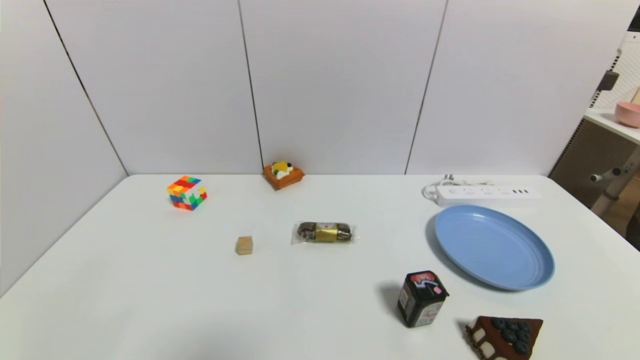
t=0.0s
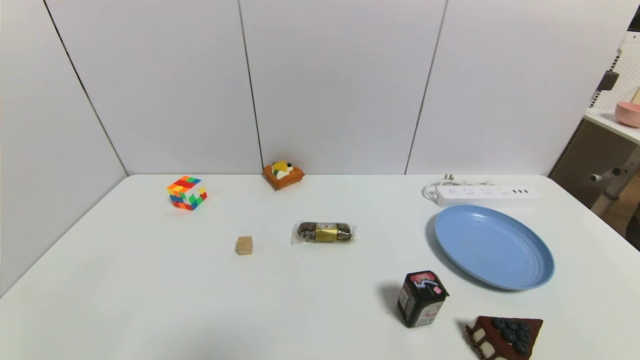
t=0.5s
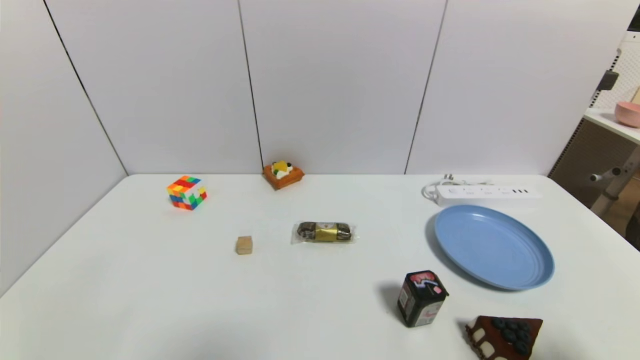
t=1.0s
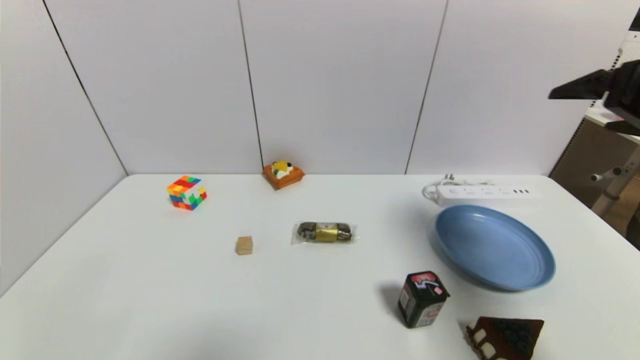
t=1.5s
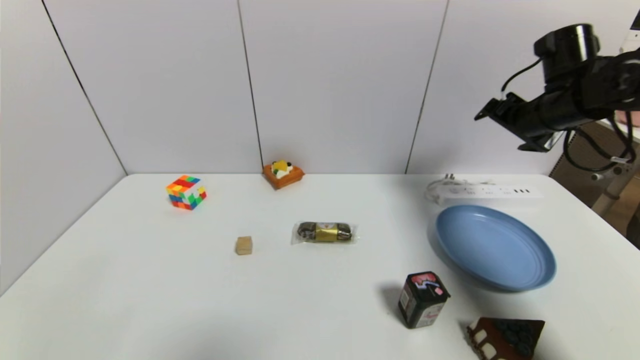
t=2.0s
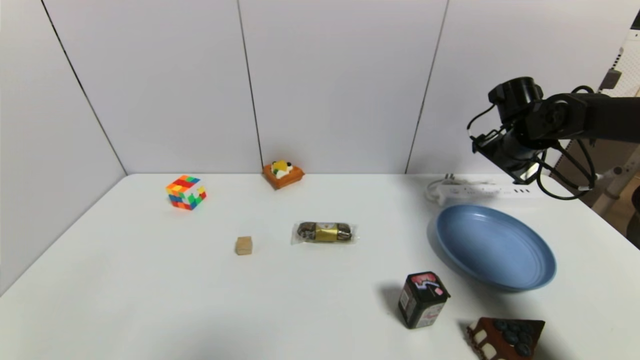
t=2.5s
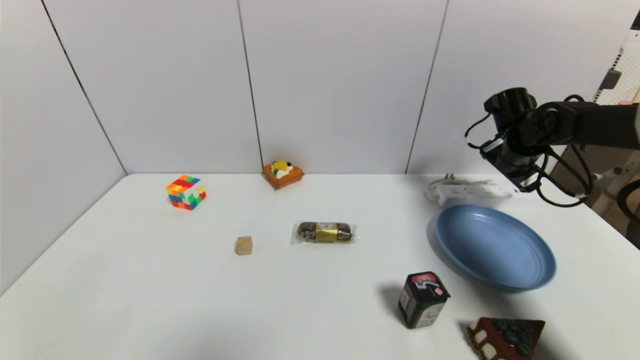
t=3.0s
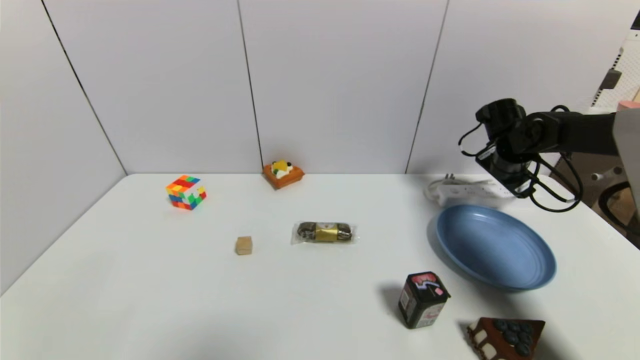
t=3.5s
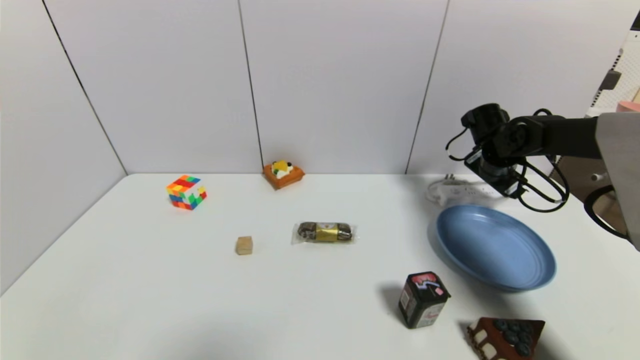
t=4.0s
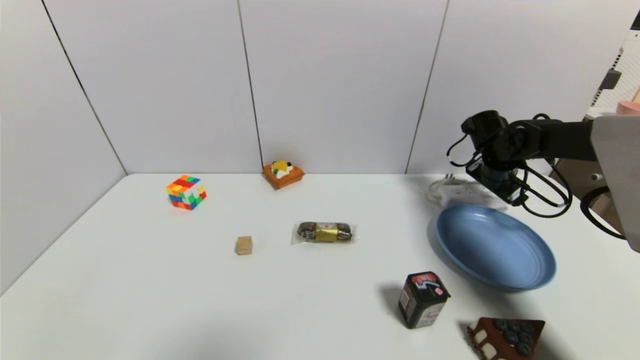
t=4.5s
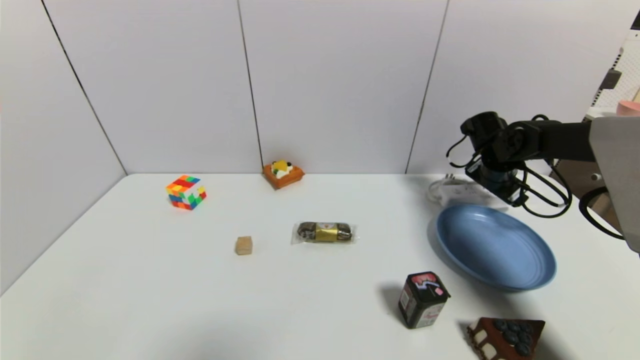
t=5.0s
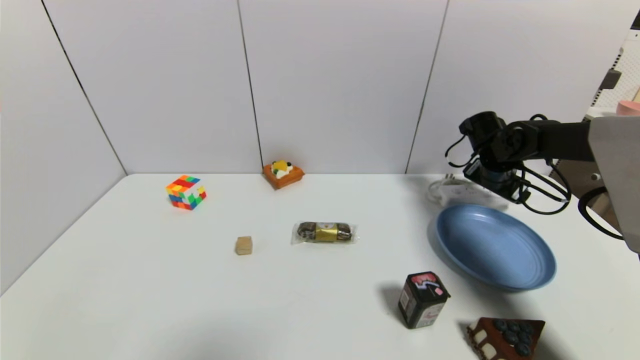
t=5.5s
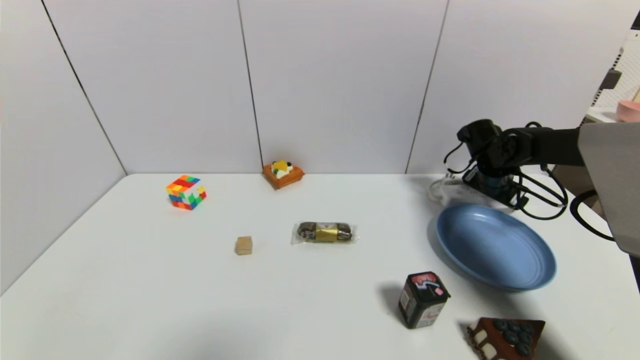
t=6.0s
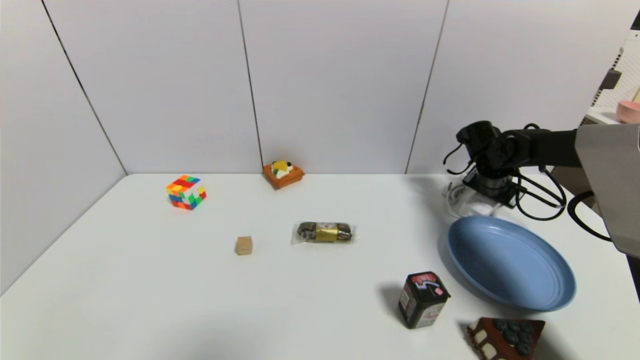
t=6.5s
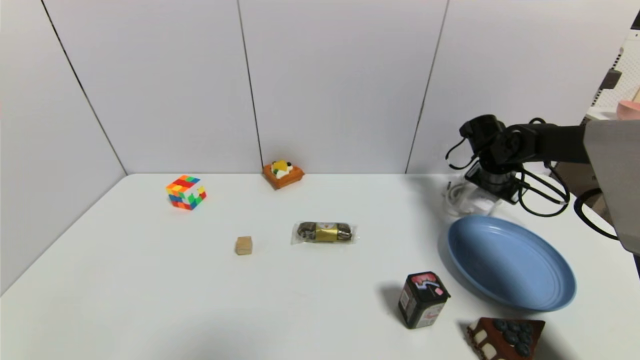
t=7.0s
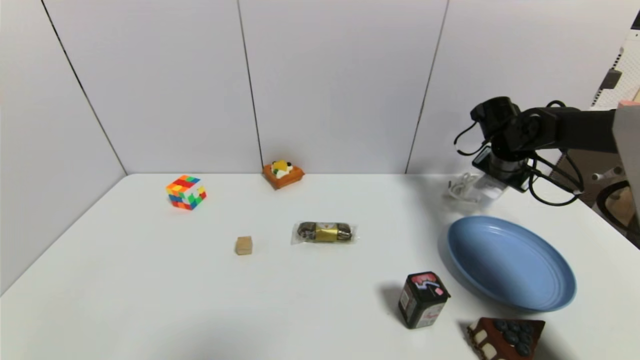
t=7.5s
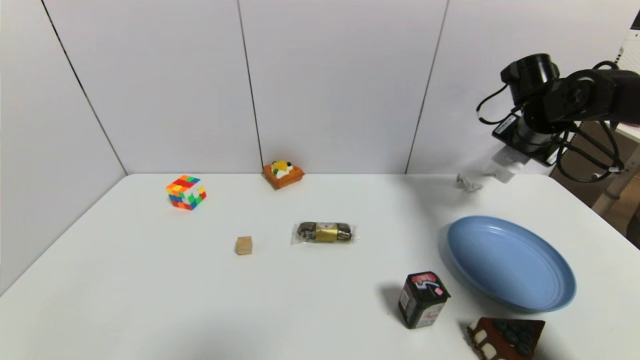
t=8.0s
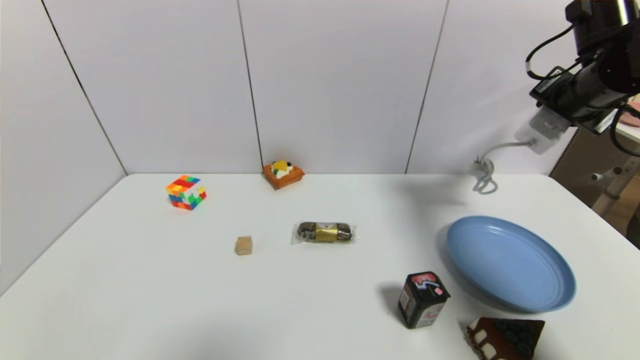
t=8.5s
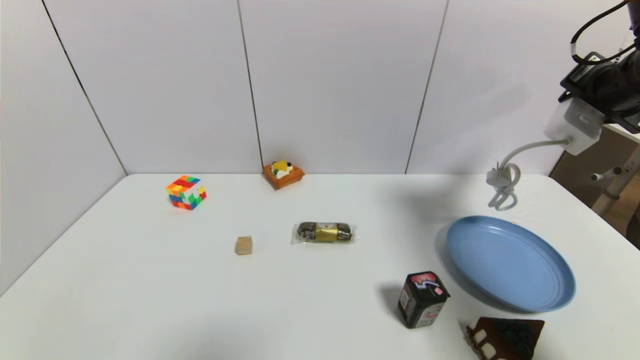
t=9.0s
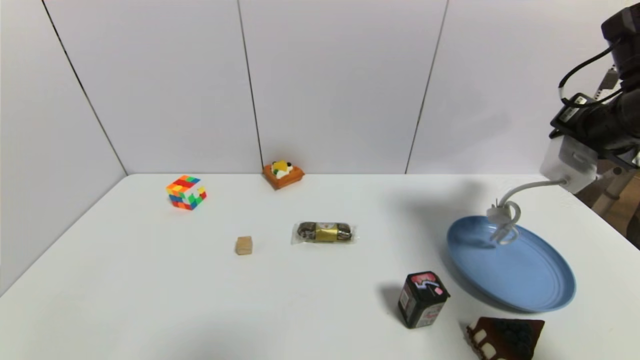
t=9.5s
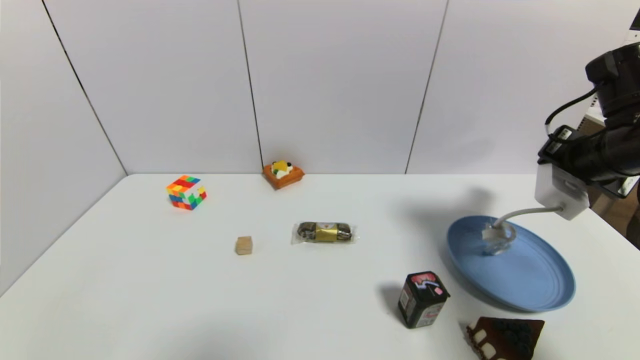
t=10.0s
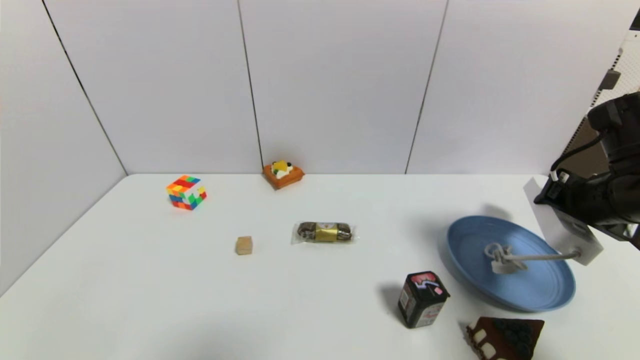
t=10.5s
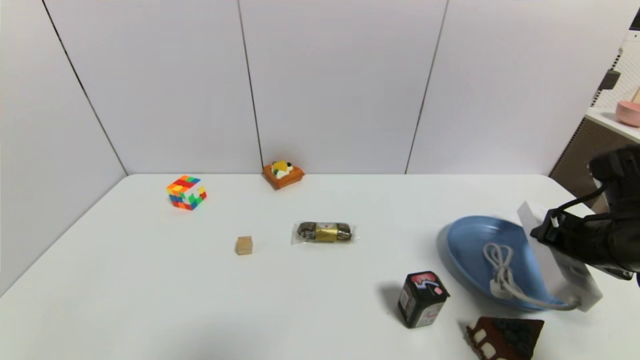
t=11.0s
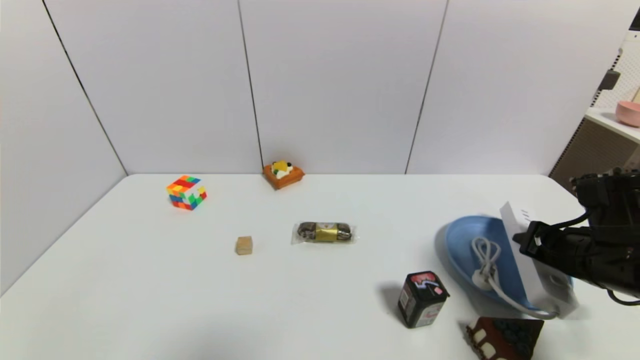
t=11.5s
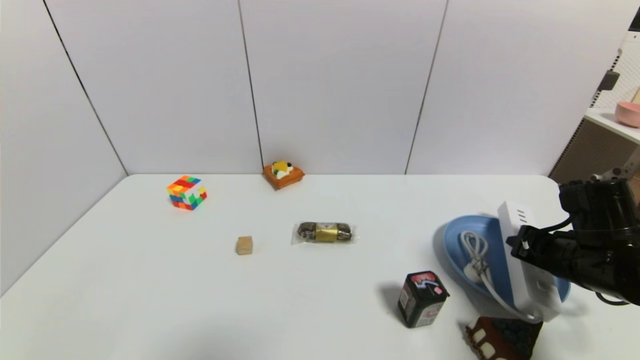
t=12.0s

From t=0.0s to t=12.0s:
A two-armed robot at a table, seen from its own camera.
Task of the whole recording: use a gripper to pick the target object and place on the blue plate.
Step, from t=0.0s to t=6.0s: Grasp the plugboard with the right gripper.
From t=0.0s to t=2.0s: The right gripper heads forward and upward, covering about 50 cm.
From t=2.0s to t=4.0s: The right gripper goes about 15 cm downward and forward.
From t=4.0s to t=6.0s: The grippers stay close to where they were, moving slightly.
From t=6.0s to t=8.0s: The right gripper moves upward, some 10 cm, and closes up.
From t=8.0s to t=10.0s: The right gripper travels backward by about 15 cm.
From t=10.0s to t=12.0s: The right gripper is displaced downward by about 15 cm.

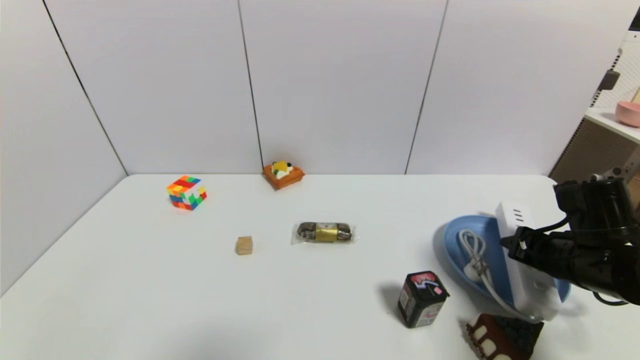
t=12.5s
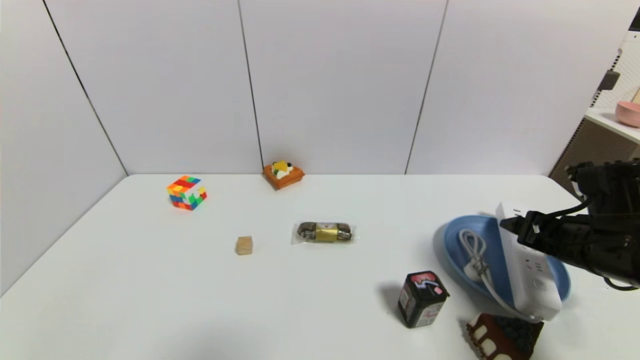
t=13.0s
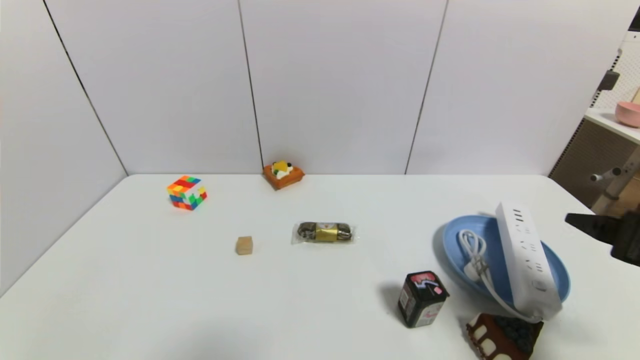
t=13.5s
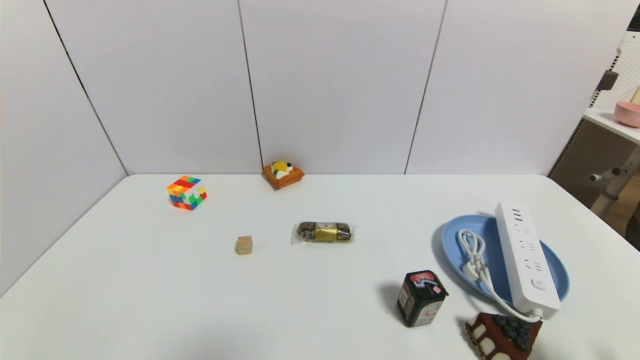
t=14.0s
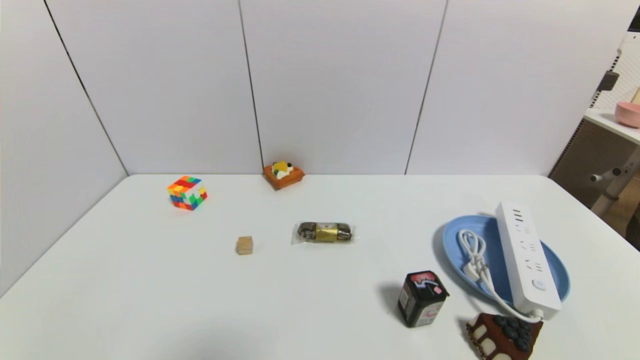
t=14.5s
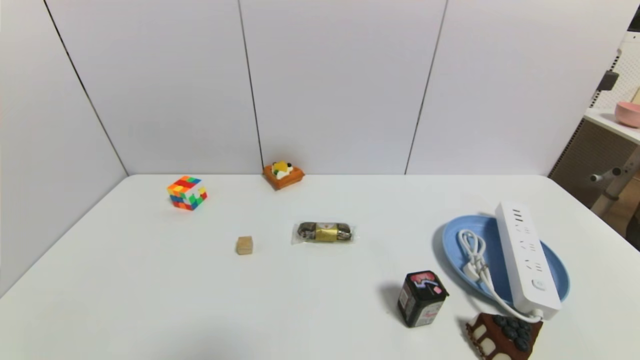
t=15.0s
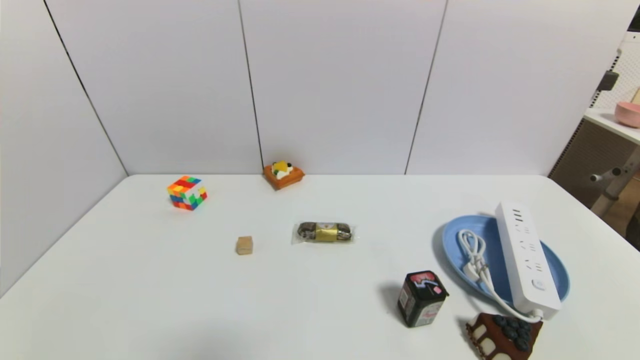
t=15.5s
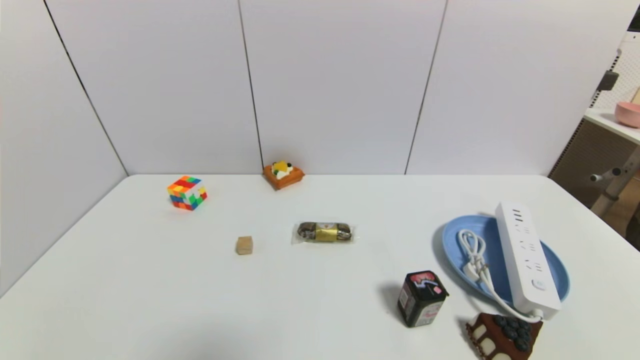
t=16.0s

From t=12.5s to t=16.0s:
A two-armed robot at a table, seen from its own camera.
Task of the whole recording: use a gripper to pick the target object and place on the blue plate.
From t=12.5s to t=14.5s: The right gripper shifts approximately 25 cm backward, and opens up.

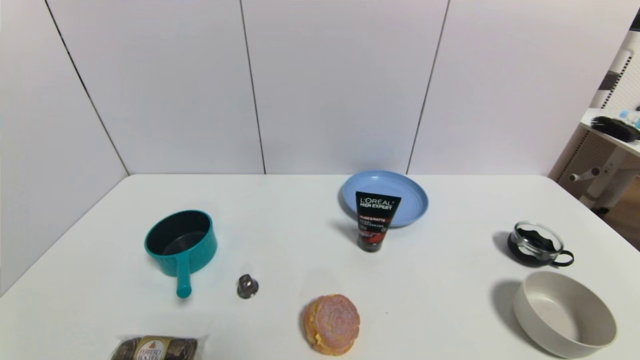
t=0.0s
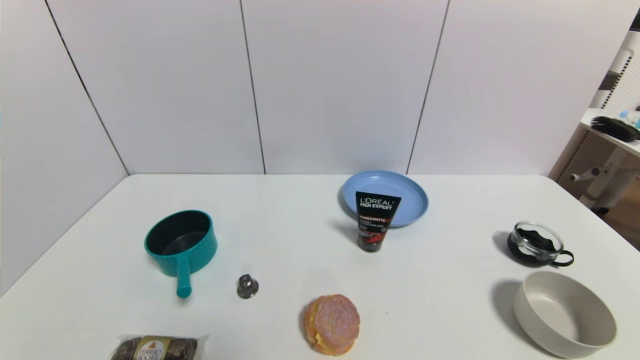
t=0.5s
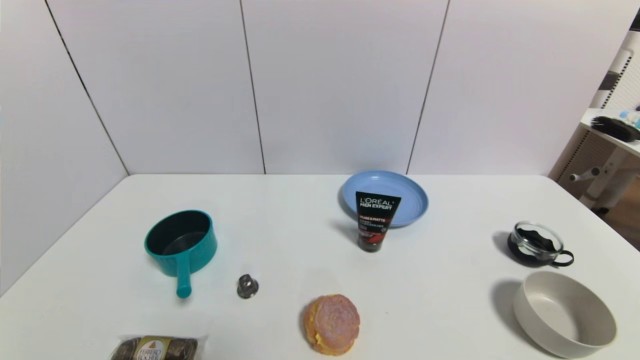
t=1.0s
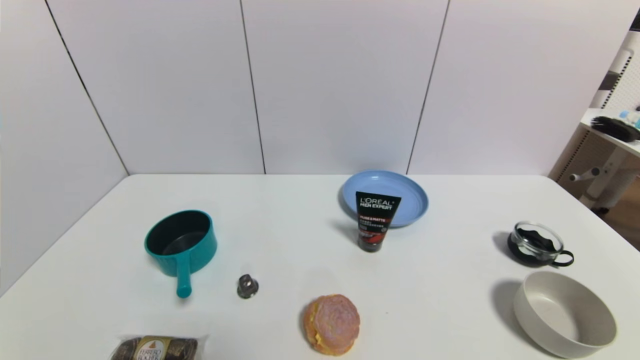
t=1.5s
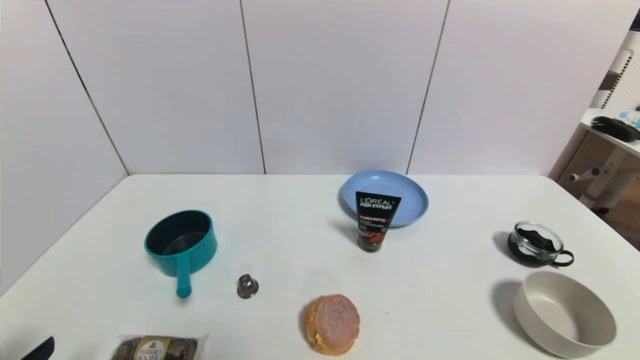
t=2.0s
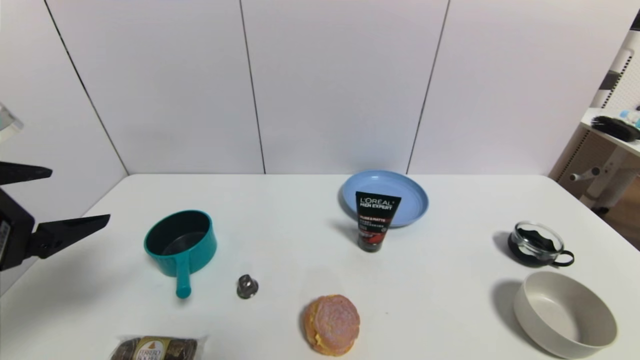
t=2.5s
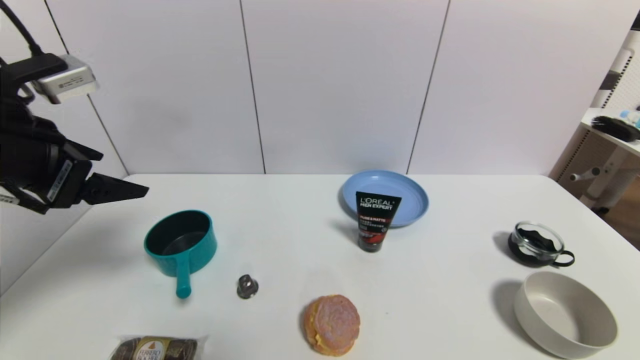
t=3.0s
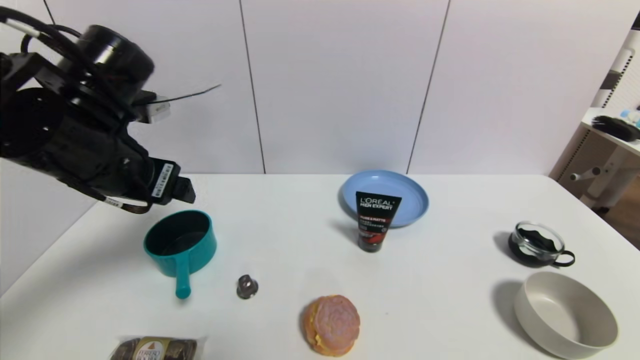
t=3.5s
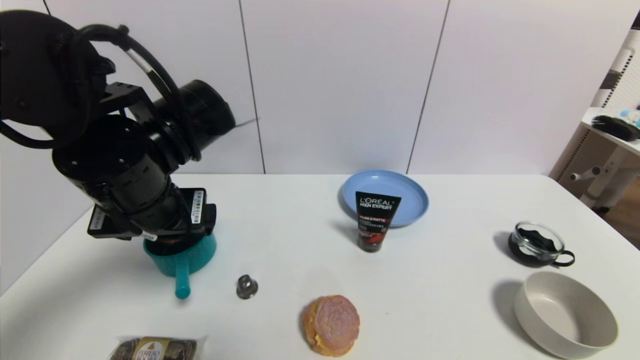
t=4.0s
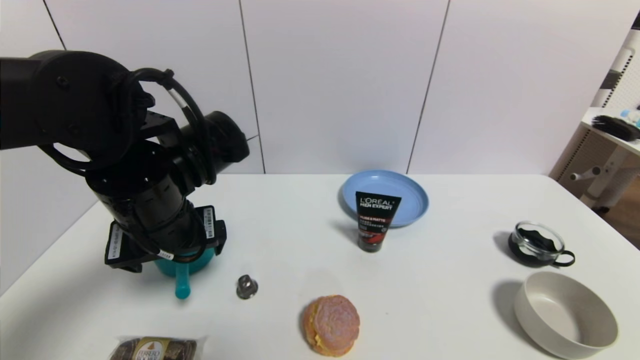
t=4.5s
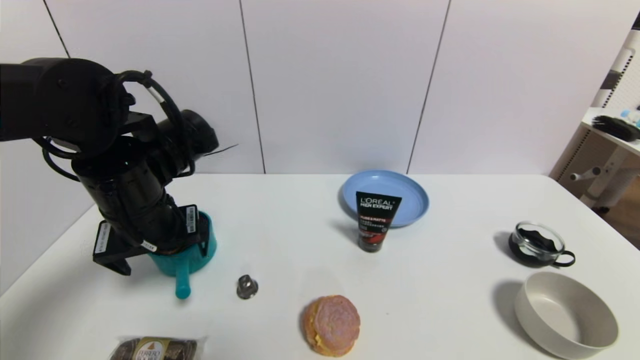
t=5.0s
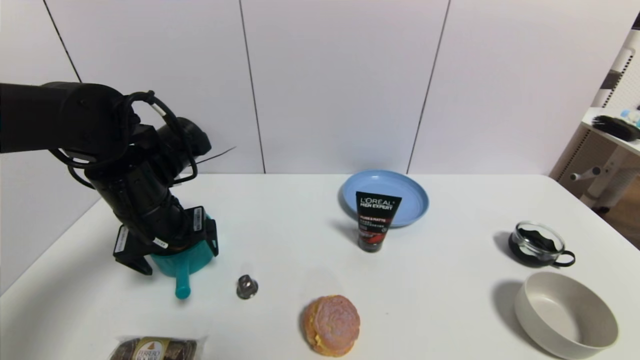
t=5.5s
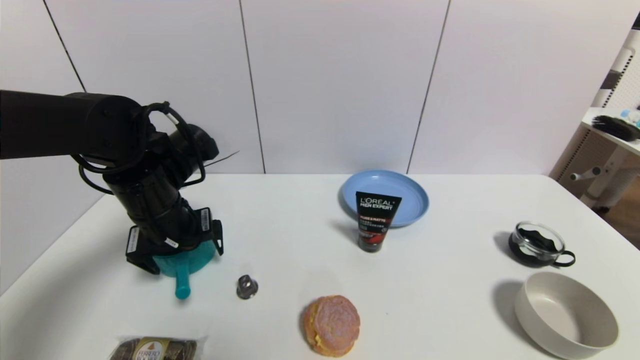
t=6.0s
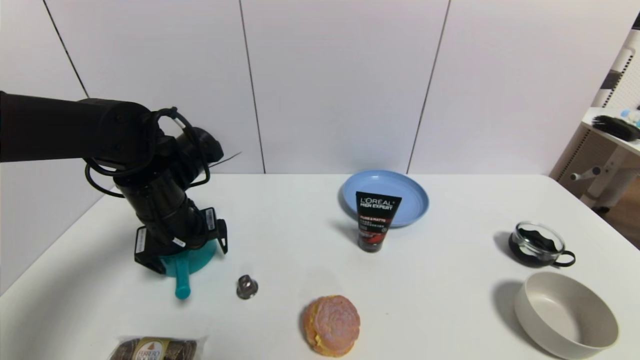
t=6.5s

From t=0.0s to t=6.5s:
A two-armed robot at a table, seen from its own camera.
Task of the whole recording: use a gripper to pick the target object and place on the blue plate.
From t=2.0s to t=4.5s: The left gripper heads forward and to the right, covering some 25 cm.
From t=4.5s to t=6.5s: The left gripper heads forward, covering roughly 5 cm.
